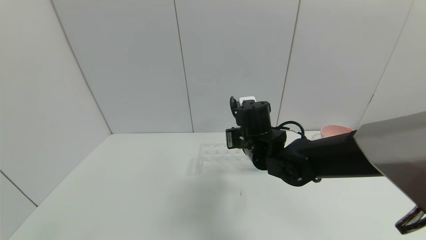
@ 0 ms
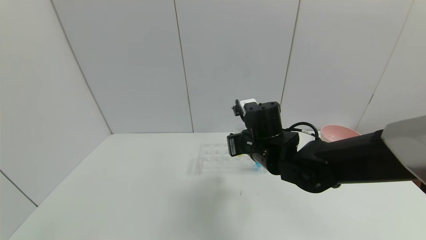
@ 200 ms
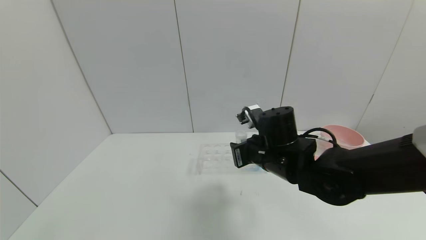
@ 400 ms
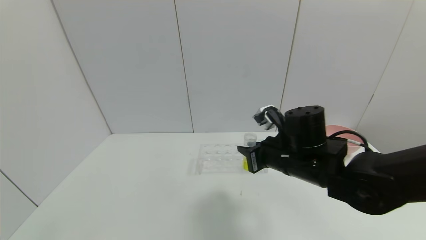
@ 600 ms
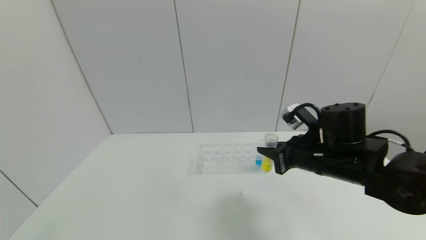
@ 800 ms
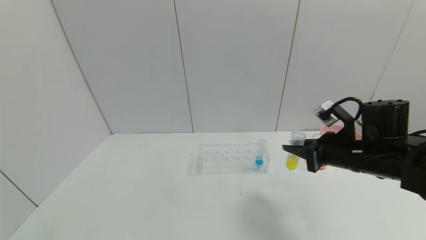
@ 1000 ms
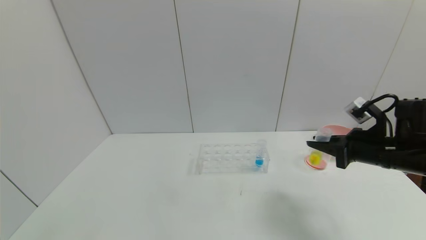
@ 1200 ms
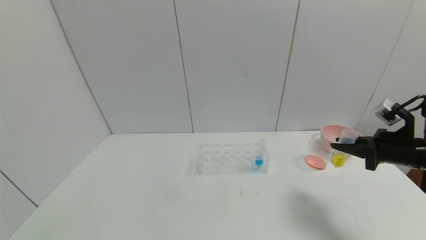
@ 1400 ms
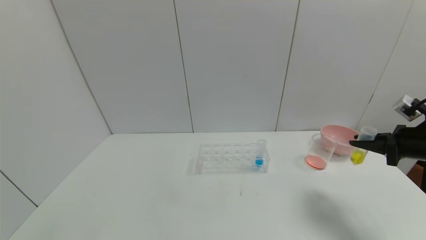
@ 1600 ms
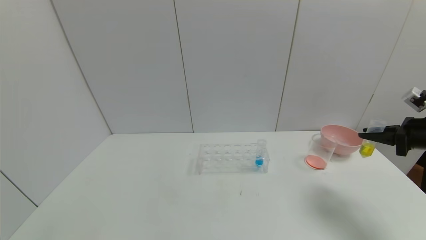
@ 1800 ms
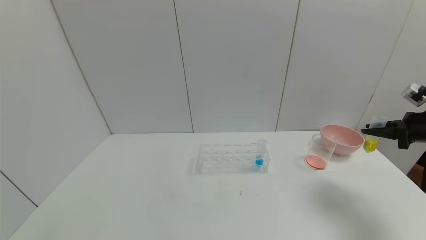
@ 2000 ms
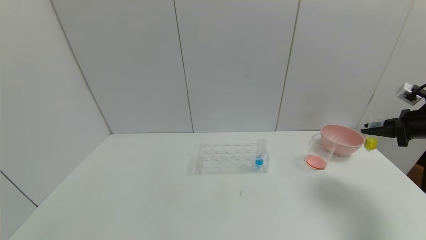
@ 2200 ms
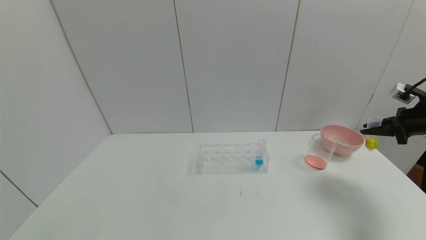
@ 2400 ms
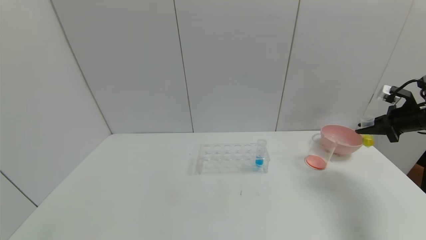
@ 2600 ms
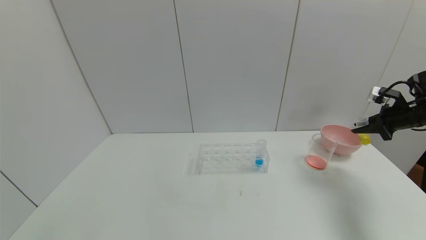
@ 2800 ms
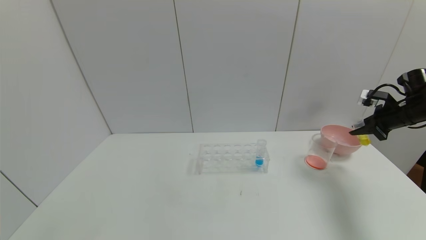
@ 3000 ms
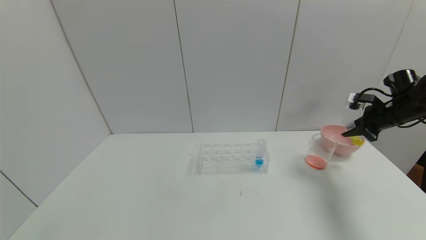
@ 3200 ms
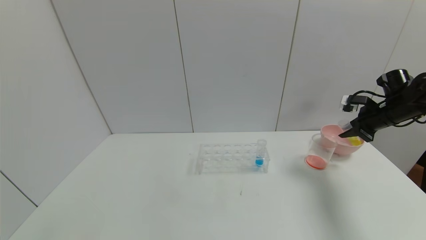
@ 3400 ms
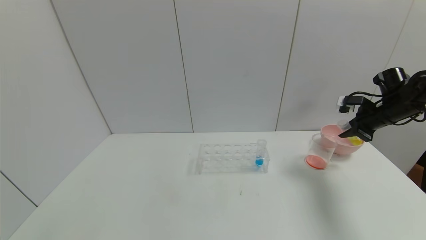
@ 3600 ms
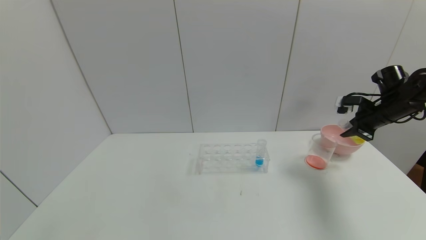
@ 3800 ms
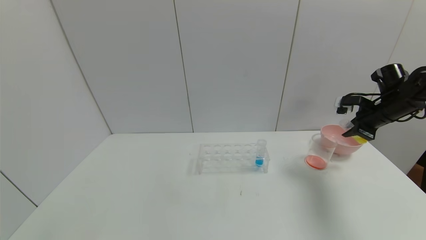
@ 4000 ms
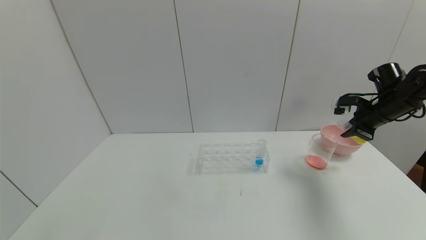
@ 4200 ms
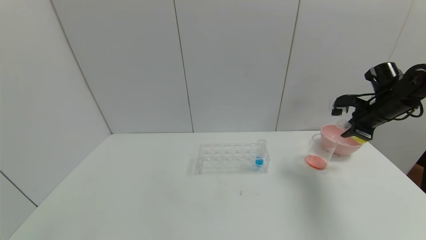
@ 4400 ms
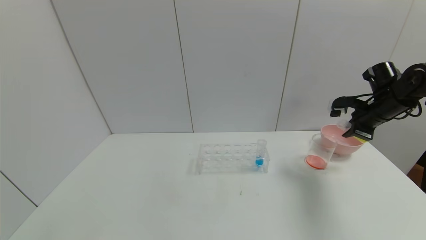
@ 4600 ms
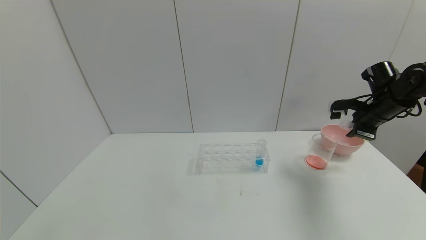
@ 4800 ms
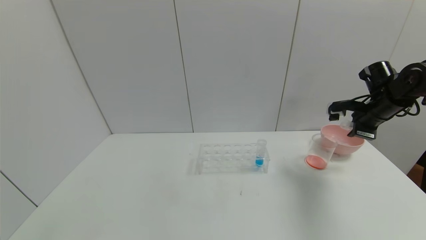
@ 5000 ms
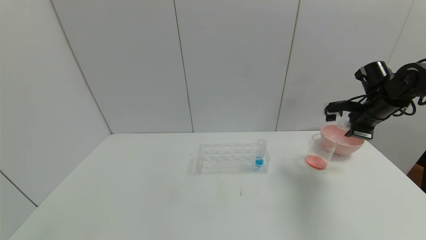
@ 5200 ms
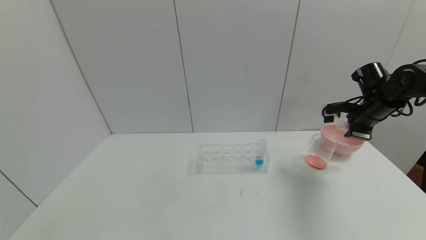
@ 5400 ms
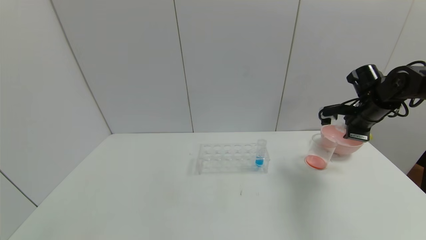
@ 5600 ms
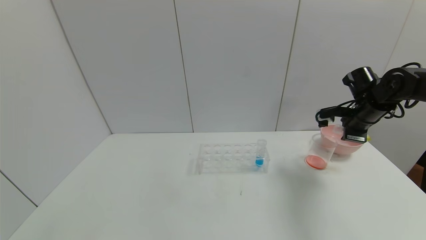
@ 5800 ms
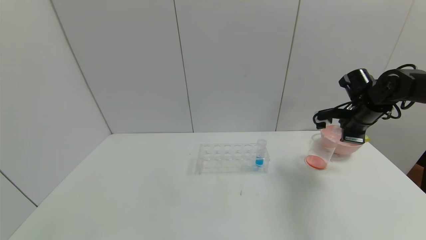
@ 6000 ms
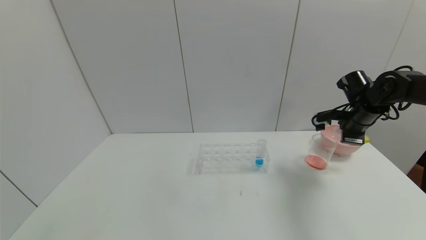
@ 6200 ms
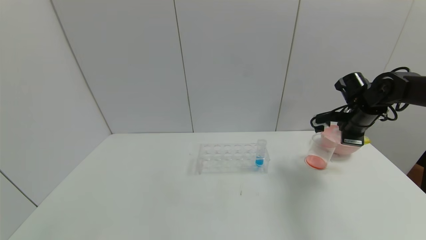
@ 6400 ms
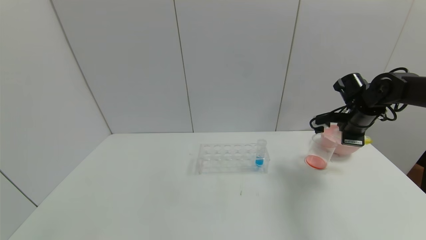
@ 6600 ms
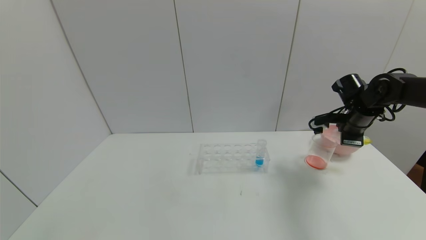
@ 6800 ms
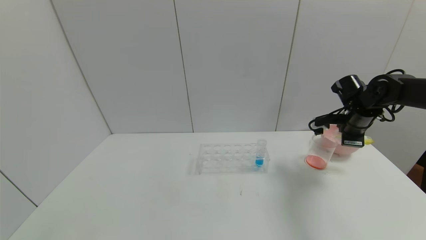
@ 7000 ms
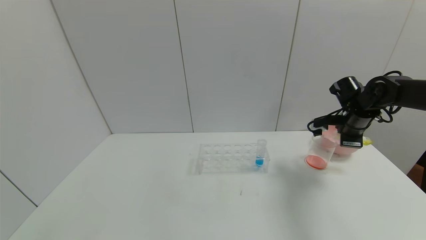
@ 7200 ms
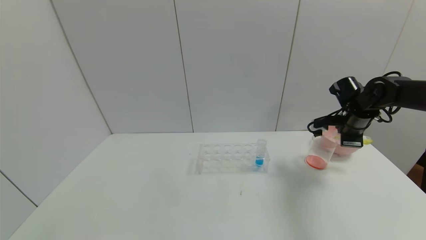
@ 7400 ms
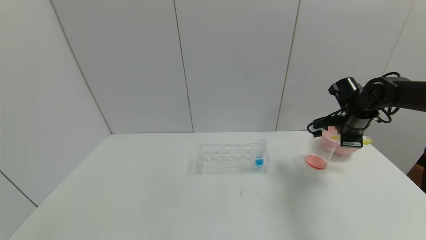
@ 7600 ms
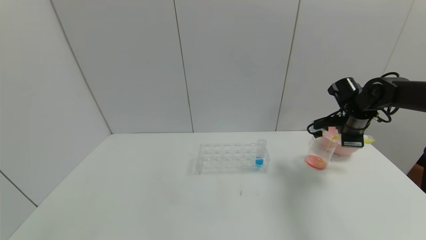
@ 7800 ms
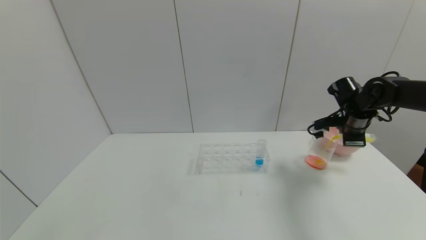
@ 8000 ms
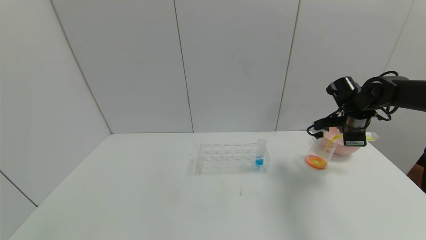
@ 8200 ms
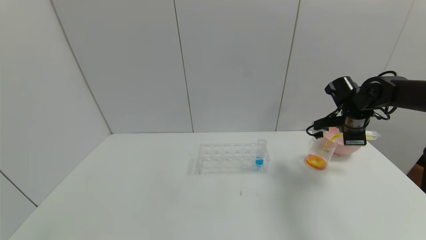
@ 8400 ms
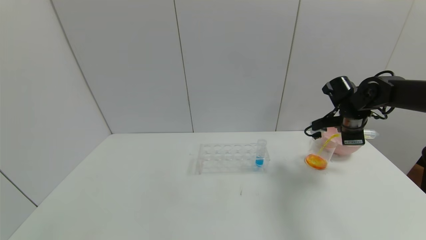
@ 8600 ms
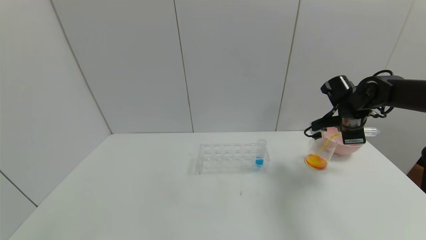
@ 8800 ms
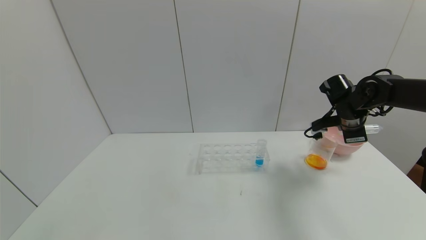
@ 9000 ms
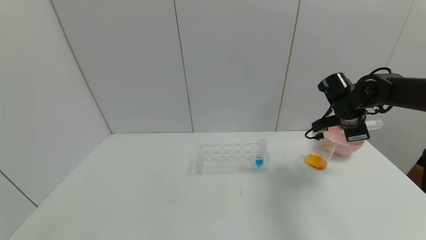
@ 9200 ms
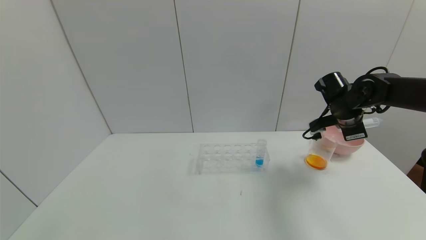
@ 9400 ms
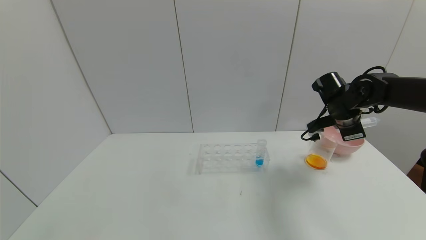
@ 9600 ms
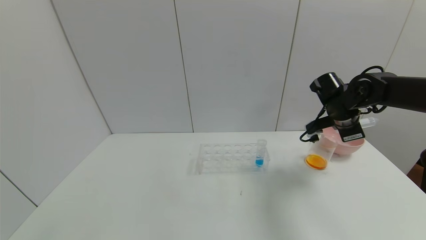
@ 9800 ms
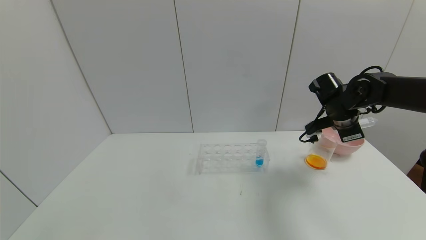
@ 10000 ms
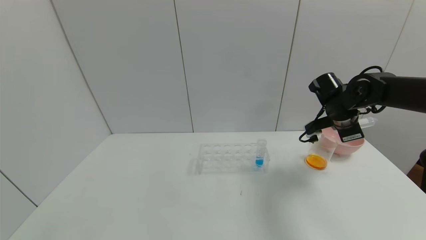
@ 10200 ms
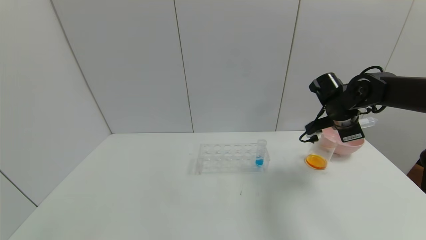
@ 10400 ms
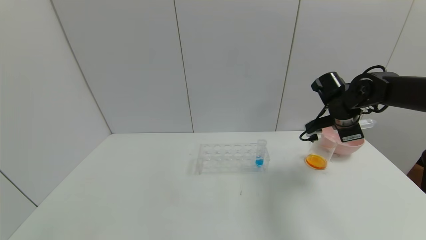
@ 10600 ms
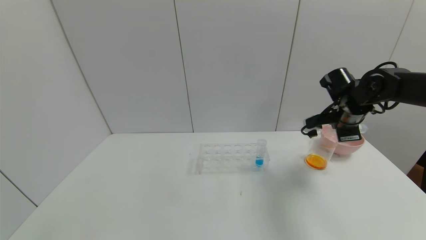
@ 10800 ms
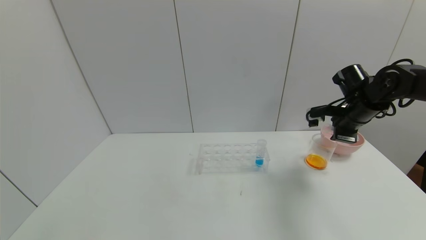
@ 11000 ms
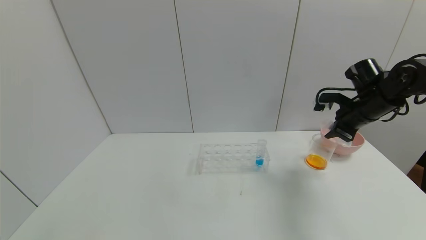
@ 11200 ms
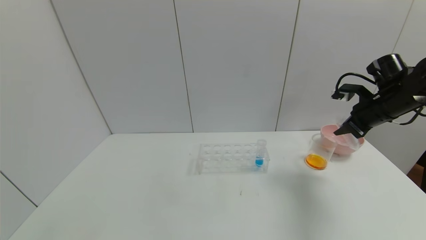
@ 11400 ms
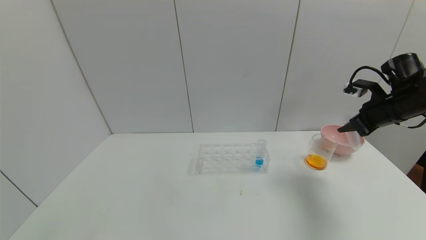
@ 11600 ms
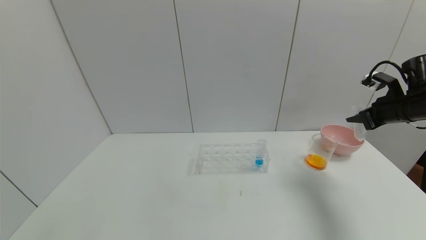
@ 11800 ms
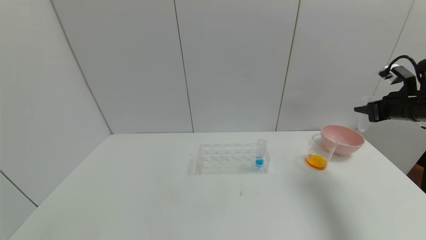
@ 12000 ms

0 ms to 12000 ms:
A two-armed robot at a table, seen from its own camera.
Task of the whole recording: pick up the test tube with yellow pigment and the test tube with red pigment by grippers and pour them into the beaker.
Step, 0 ms to 9000 ms: Pour the yellow reagent into the graduated cylinder with the right gripper.
0 ms to 1600 ms: The right gripper heads to the right, covering about 35 cm.
1600 ms to 3000 ms: The right gripper shifts some 10 cm forward.
3000 ms to 4400 ms: The right gripper goes roughly 5 cm to the left.
4400 ms to 6000 ms: The grippers move only a little.
6000 ms to 7600 ms: There are only small adjustments of the grippers.
7600 ms to 9000 ms: The grippers make only small movements.
9000 ms to 10400 ms: There are only small adjustments of the grippers.
10400 ms to 12000 ms: The right gripper shifts some 15 cm to the right.

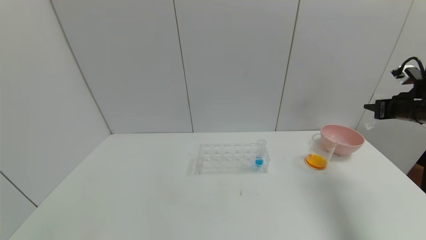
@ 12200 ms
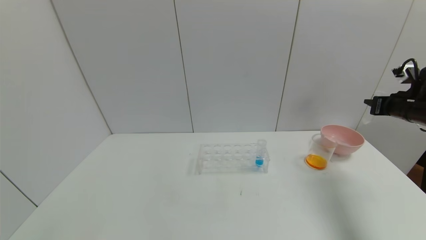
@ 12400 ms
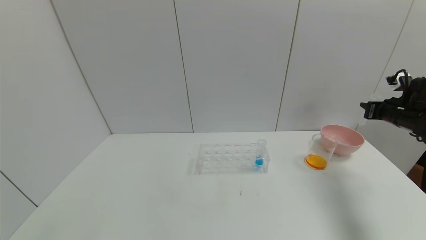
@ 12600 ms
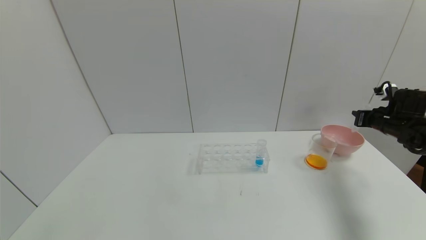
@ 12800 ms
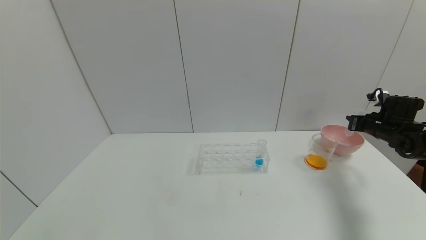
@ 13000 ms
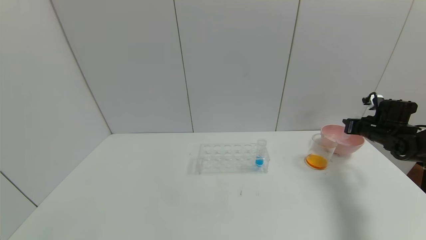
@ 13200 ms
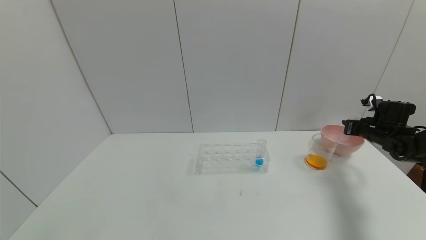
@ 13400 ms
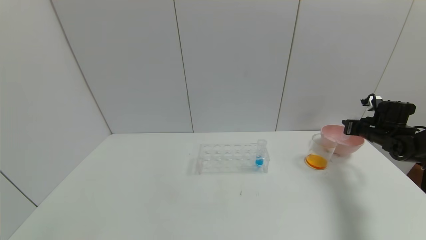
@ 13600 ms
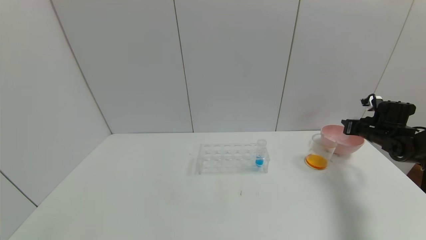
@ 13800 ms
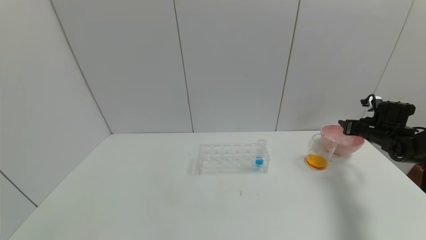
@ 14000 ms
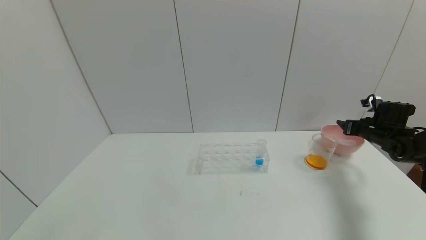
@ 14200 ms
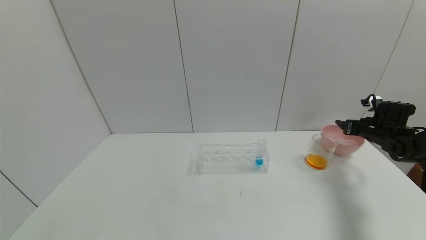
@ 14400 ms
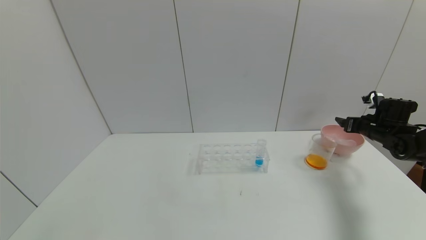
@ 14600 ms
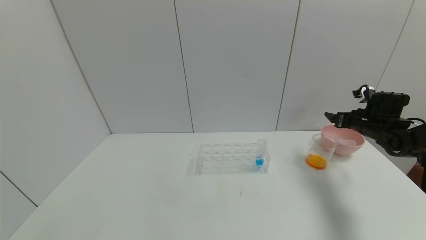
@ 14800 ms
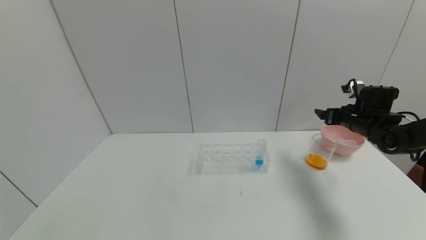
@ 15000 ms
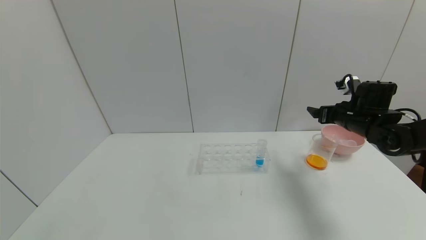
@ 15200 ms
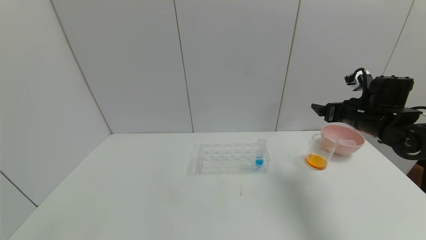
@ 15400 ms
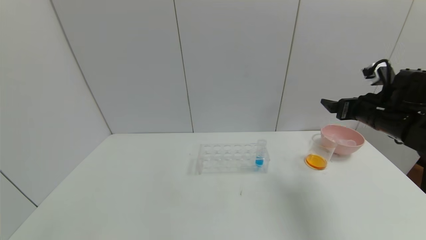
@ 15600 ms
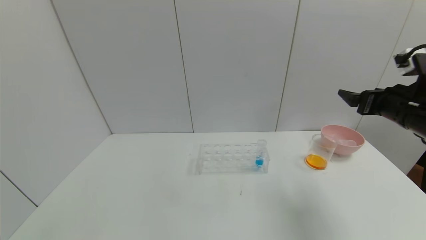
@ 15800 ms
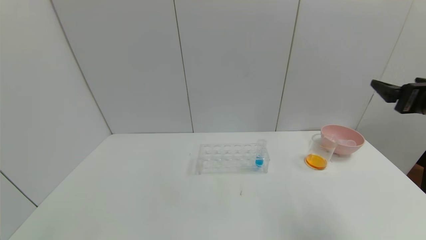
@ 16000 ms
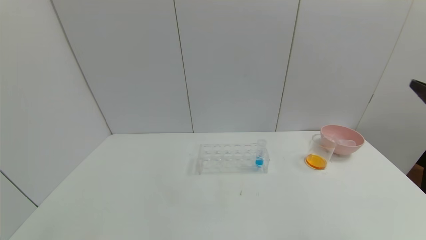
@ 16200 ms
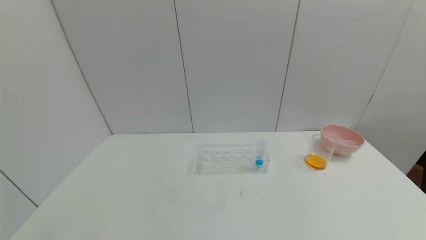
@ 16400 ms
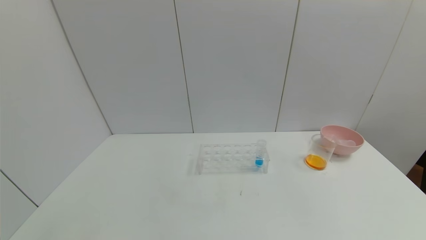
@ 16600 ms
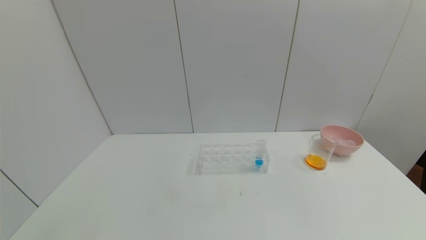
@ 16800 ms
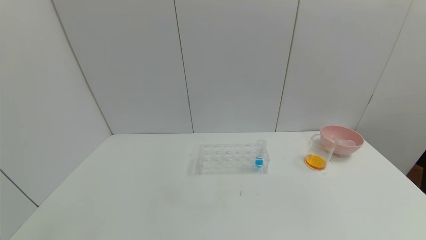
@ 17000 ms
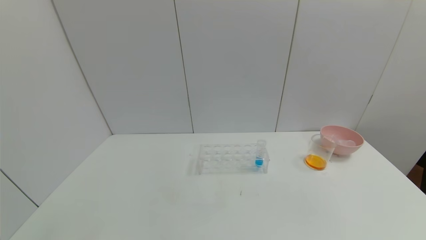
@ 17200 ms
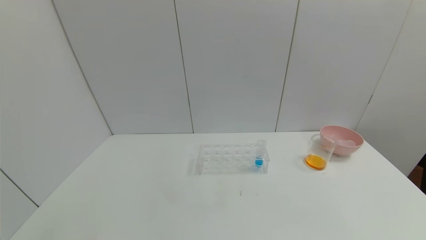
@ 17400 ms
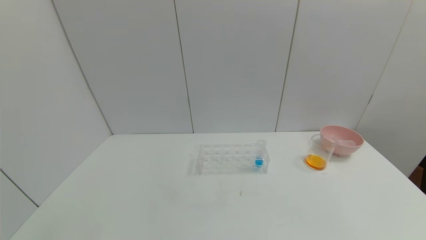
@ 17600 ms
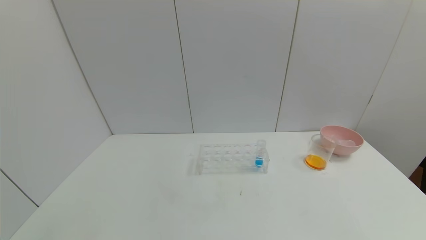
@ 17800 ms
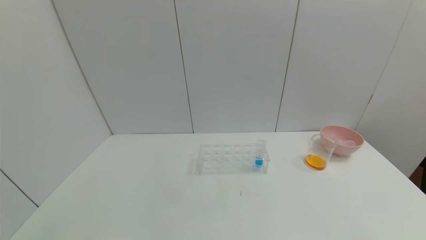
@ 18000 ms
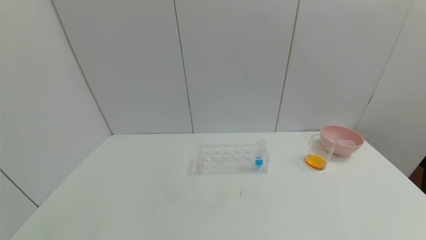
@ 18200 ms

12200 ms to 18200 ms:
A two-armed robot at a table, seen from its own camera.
Task of the whole recording: pick up the test tube with yellow pigment and the test tube with red pigment by grippers and pour them into the beaker.
Step, 12200 ms to 14400 ms: Place the test tube into the bowl with the right gripper.
12200 ms to 13800 ms: The right gripper goes approximately 15 cm downward and forward.
13800 ms to 15200 ms: The right gripper travels to the left and upward by roughly 15 cm, and opens.
15200 ms to 16600 ms: The right gripper goes approximately 35 cm backward.
